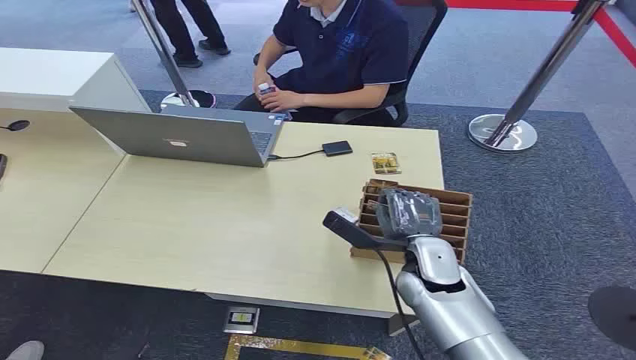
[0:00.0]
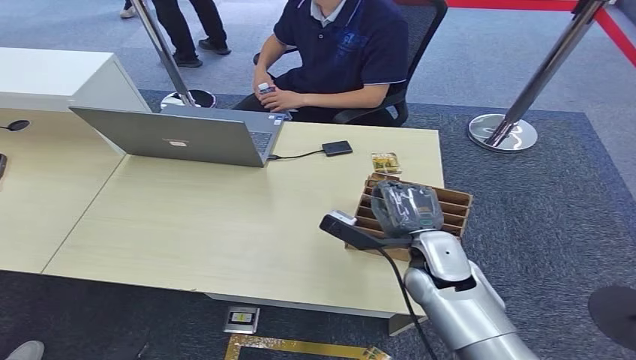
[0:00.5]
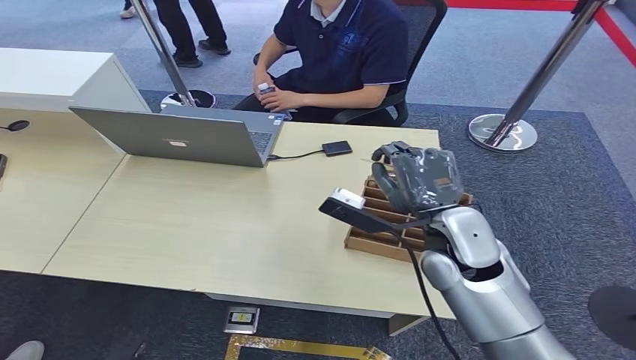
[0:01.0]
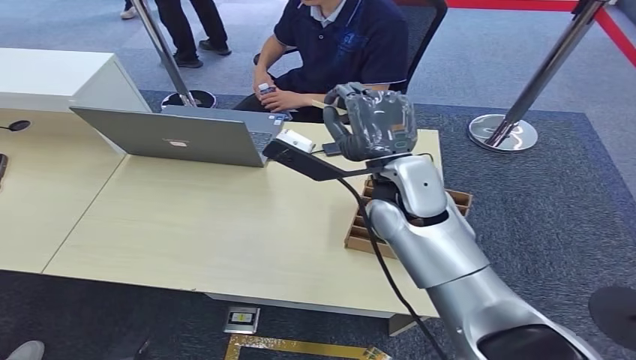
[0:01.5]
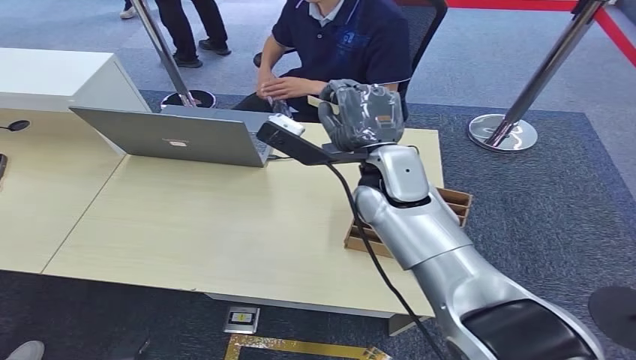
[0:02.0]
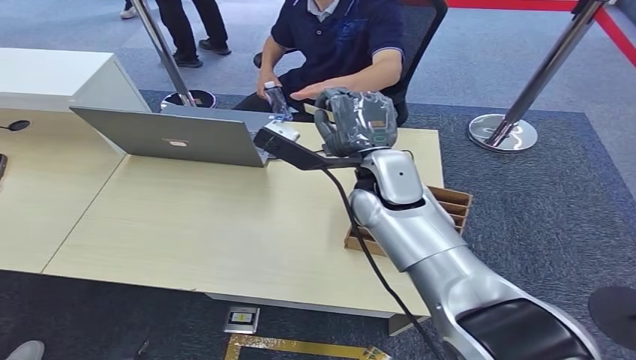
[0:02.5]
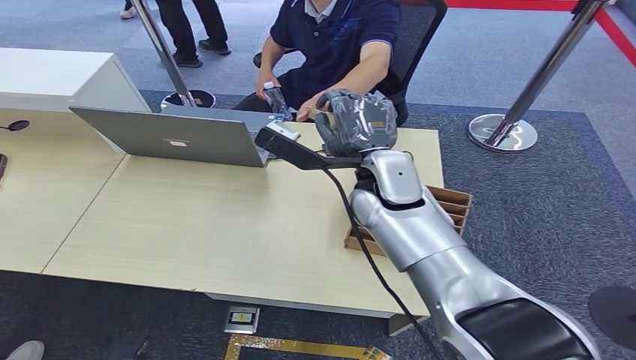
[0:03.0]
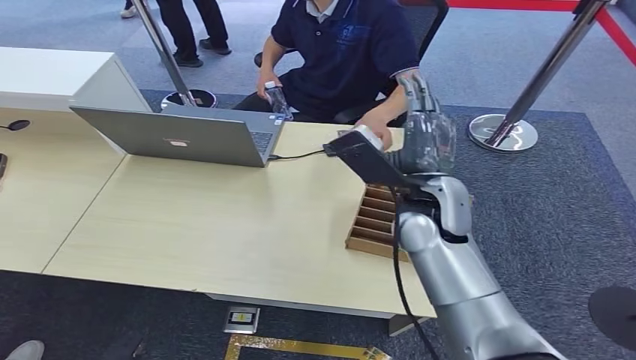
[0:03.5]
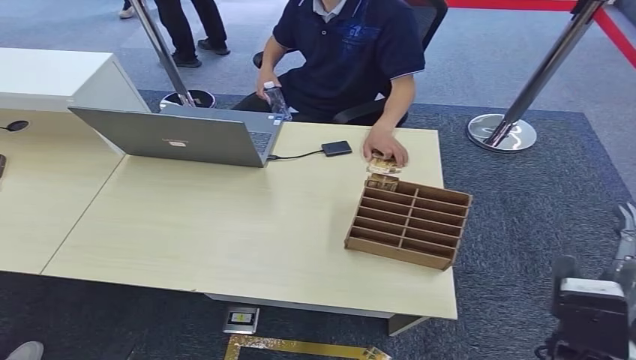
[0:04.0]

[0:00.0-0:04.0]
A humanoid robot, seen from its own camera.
Step, 0:00.0 to 0:01.0: Pick up the key card from the card box.
Step, 0:01.5 to 0:04.0: Hand the key card to the target.
0:02.0 to 0:04.0: The right hand is displaced backward, to the right and downward by about 30 cm.
